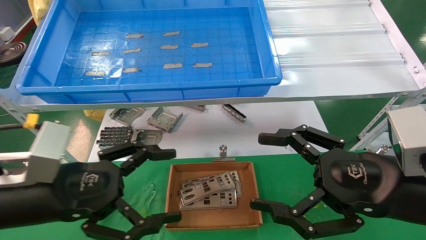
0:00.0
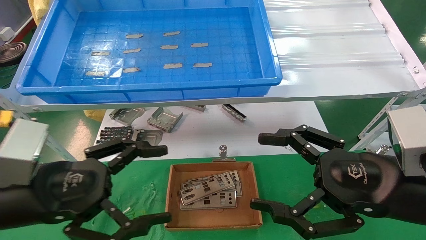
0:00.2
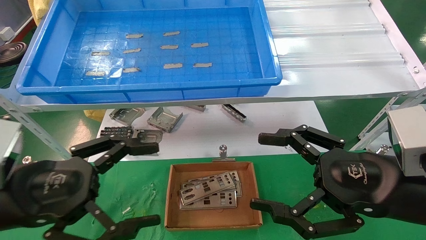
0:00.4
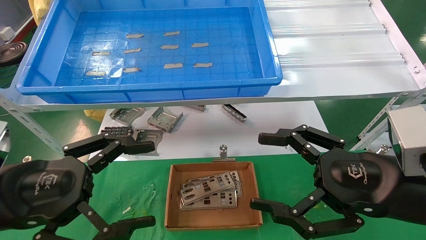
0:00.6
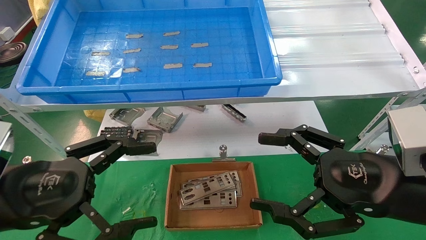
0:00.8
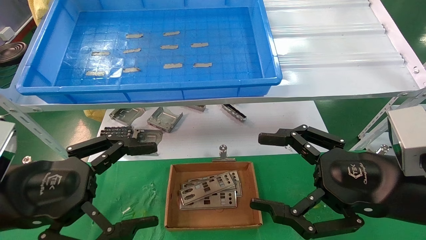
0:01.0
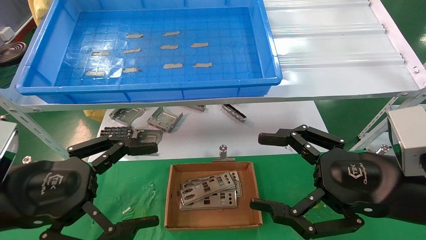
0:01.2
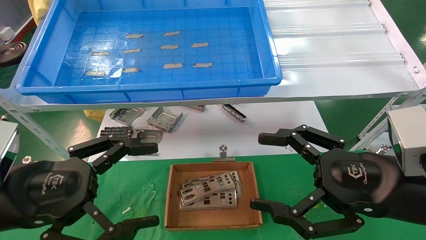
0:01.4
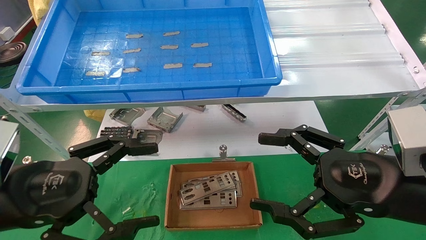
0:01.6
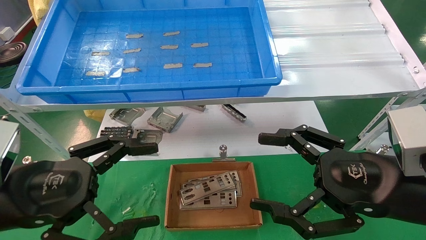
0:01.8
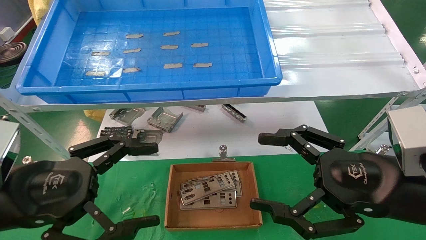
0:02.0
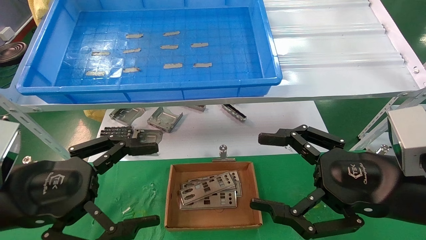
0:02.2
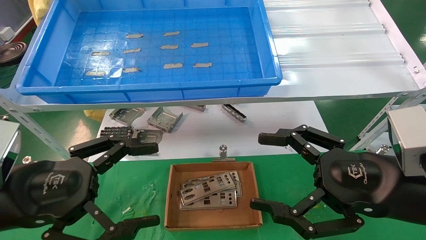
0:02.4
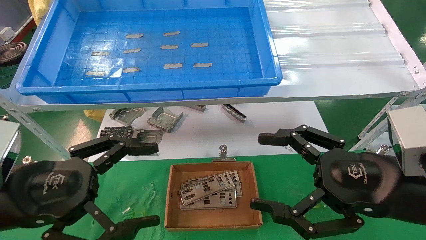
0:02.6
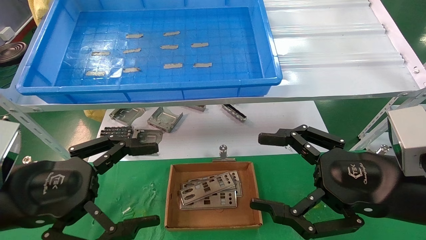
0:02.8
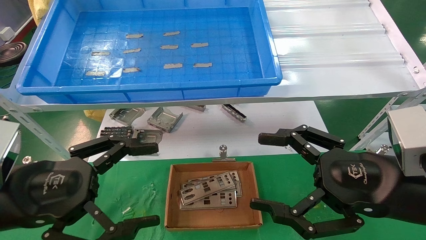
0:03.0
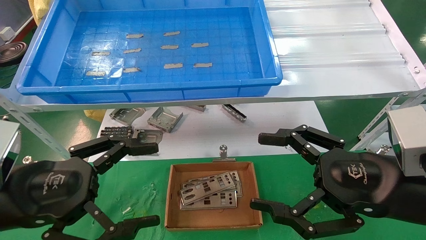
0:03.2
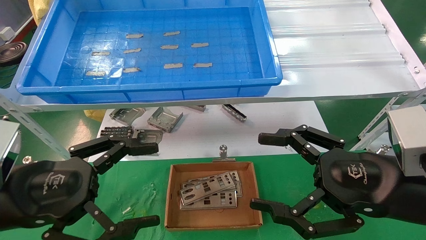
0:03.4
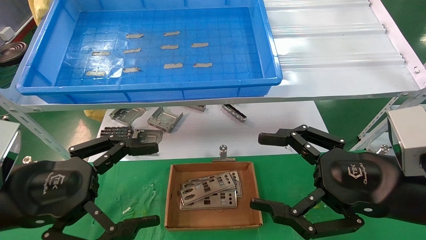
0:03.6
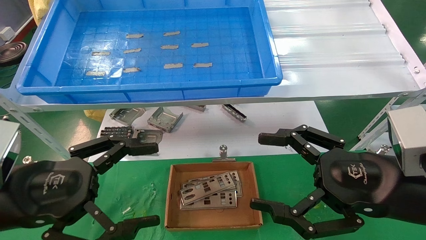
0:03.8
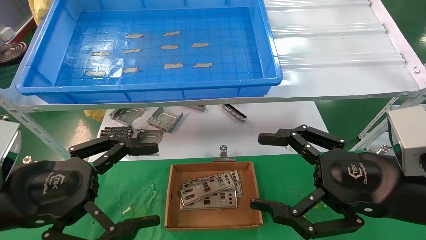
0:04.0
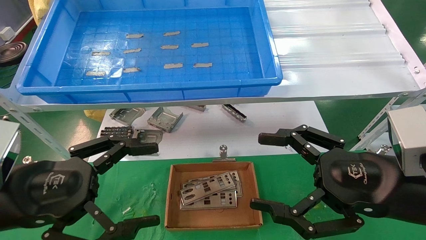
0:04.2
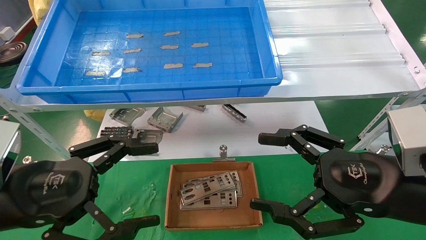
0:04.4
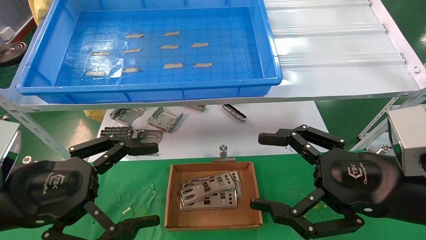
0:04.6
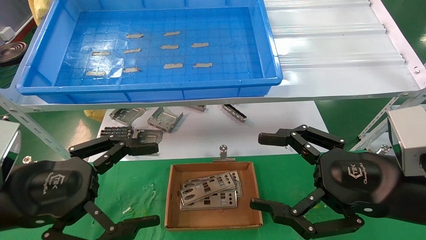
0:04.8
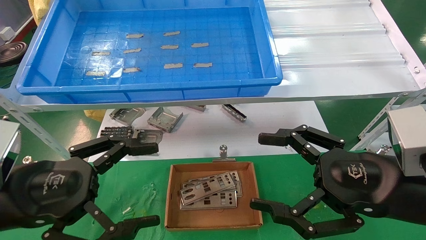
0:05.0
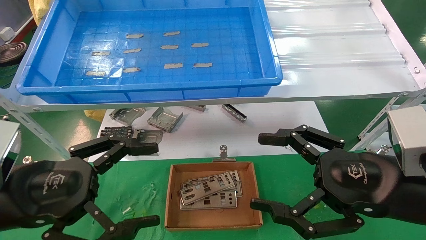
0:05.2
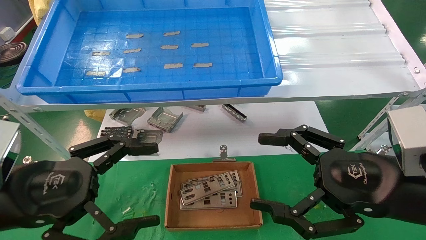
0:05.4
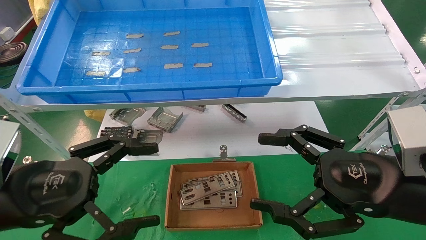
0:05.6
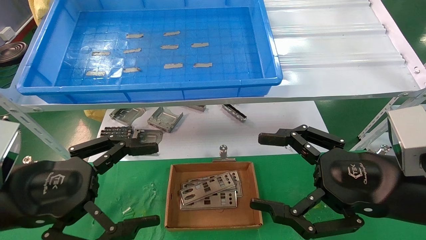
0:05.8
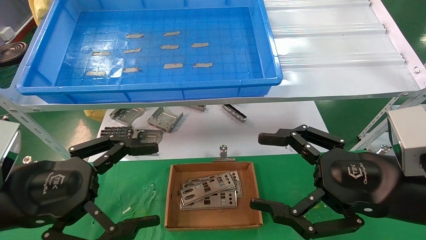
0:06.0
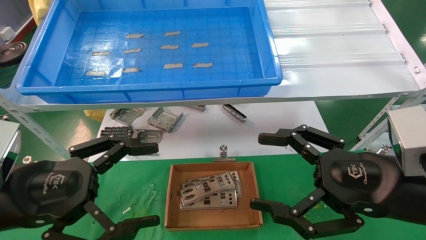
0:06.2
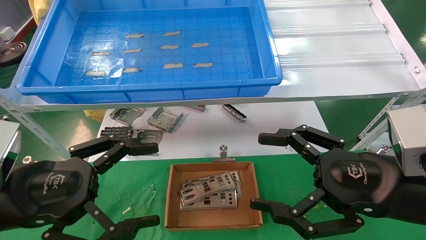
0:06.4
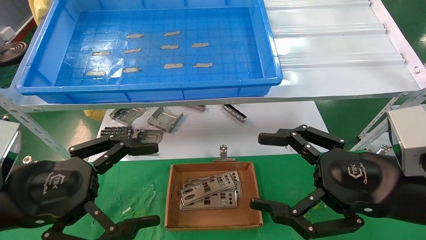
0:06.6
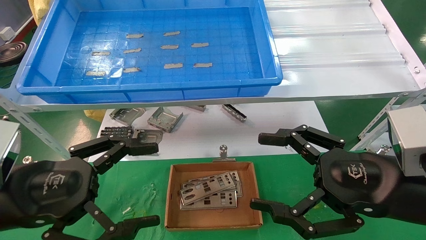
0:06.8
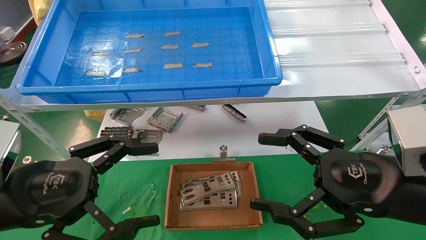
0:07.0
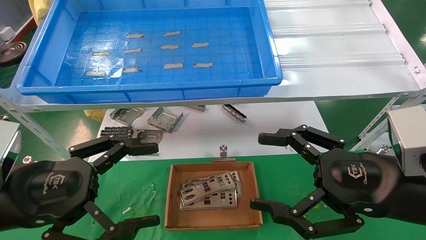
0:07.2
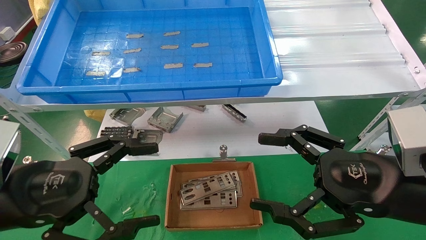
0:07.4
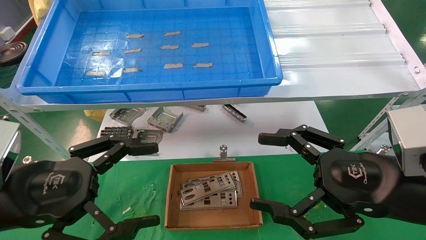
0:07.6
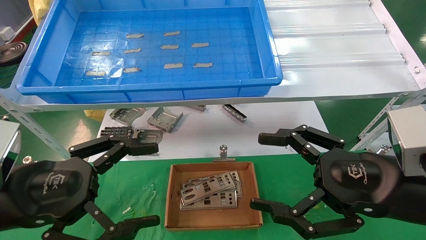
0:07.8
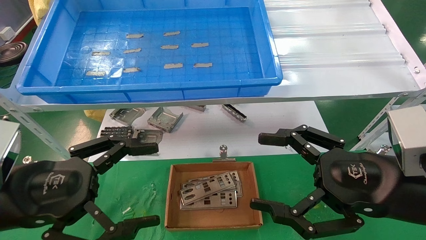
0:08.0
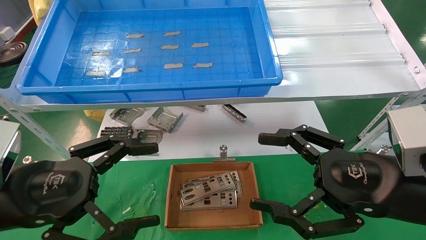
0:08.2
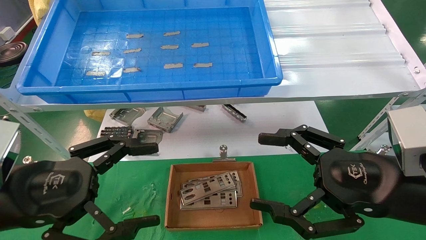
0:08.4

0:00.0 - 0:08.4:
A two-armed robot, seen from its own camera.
Task of the whole recording: pick up the parts on the tray and put them in the cardboard box.
0:00.0 - 0:01.4: The grippers stay close to where they were, moving slightly.
0:01.4 - 0:08.4: Both grippers stay put.
